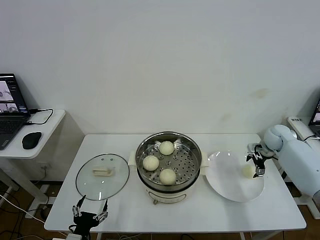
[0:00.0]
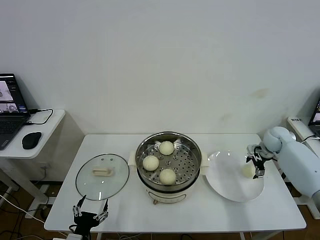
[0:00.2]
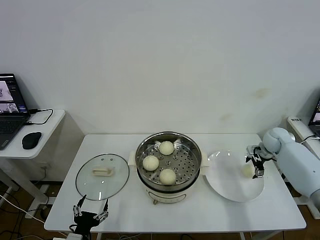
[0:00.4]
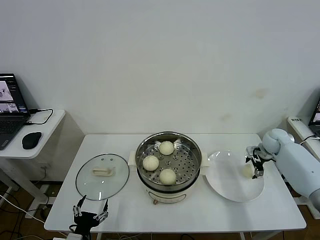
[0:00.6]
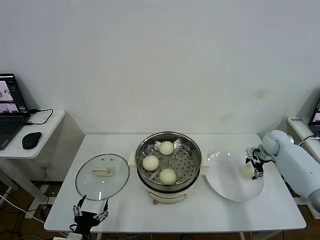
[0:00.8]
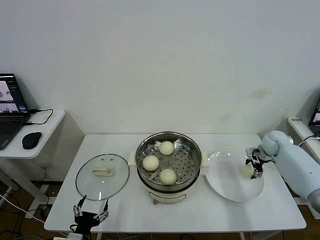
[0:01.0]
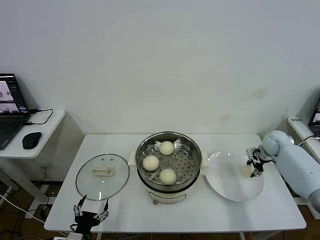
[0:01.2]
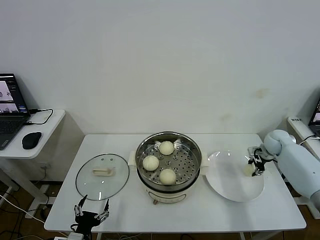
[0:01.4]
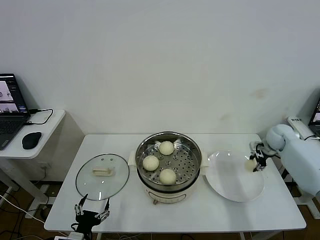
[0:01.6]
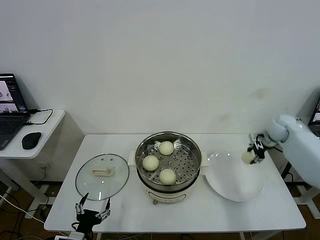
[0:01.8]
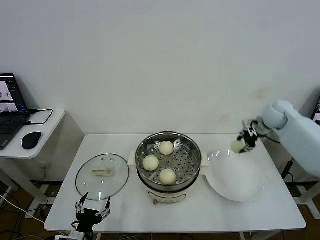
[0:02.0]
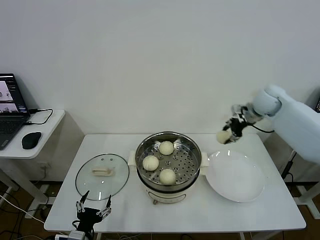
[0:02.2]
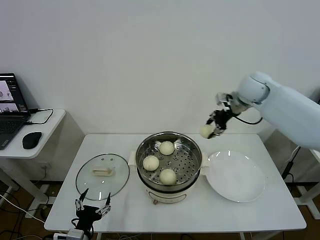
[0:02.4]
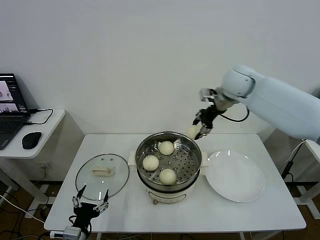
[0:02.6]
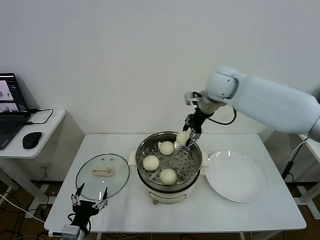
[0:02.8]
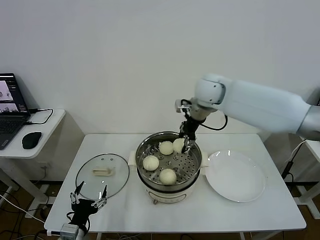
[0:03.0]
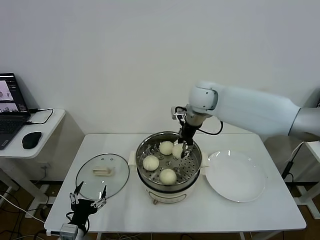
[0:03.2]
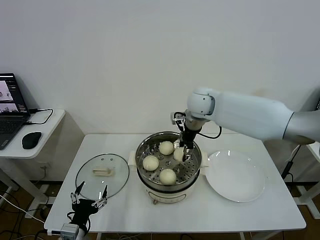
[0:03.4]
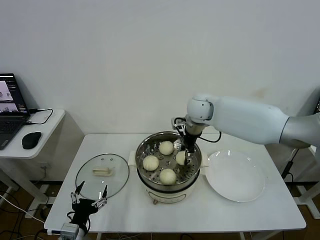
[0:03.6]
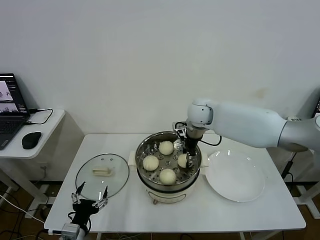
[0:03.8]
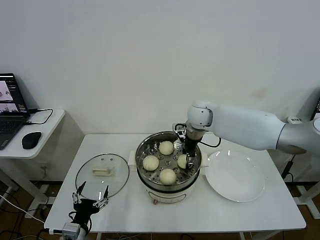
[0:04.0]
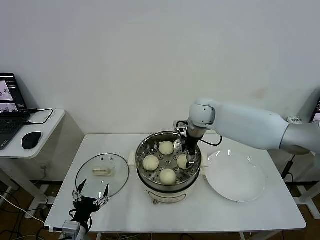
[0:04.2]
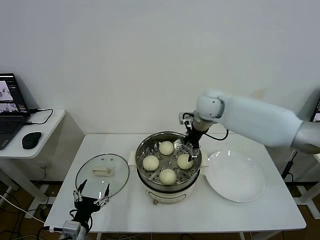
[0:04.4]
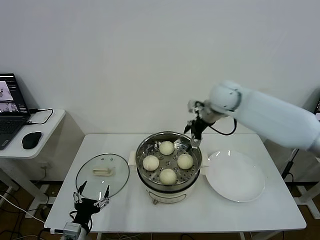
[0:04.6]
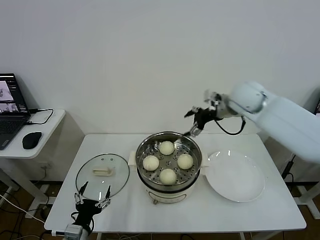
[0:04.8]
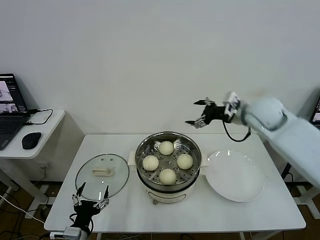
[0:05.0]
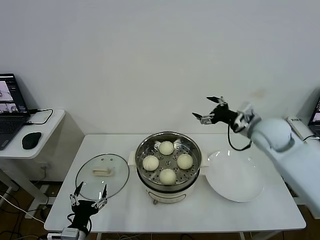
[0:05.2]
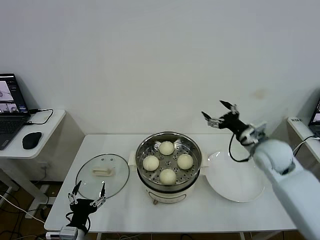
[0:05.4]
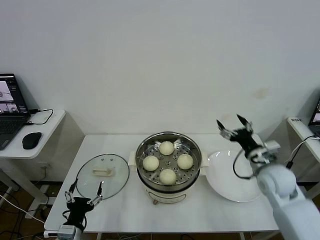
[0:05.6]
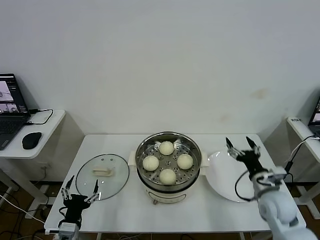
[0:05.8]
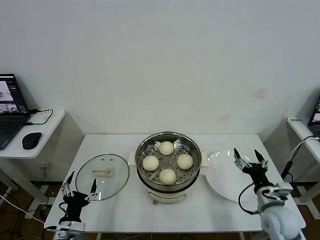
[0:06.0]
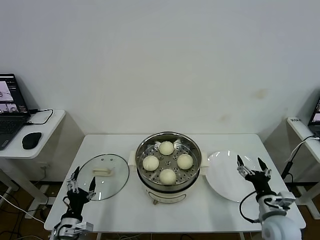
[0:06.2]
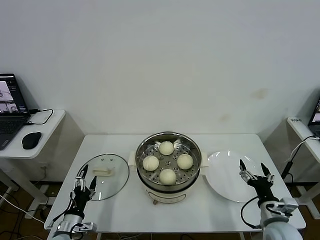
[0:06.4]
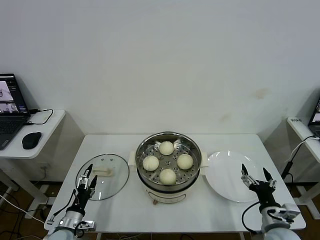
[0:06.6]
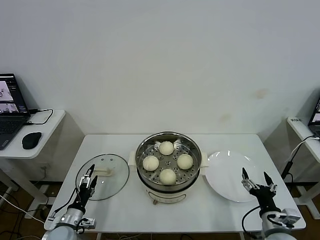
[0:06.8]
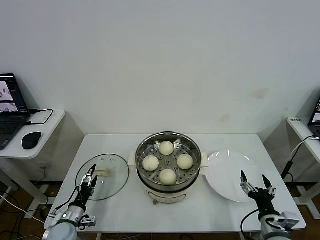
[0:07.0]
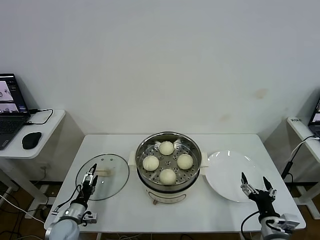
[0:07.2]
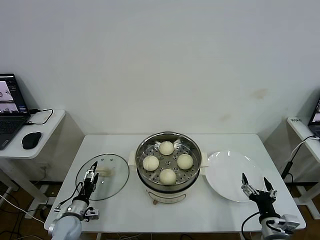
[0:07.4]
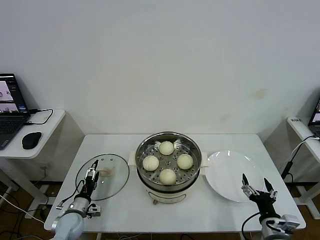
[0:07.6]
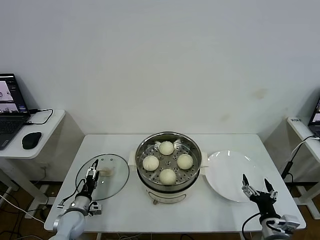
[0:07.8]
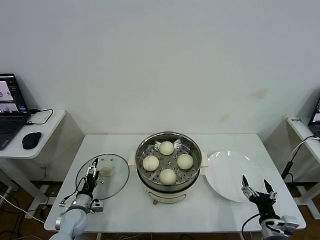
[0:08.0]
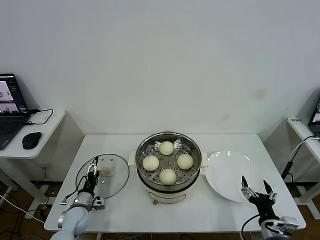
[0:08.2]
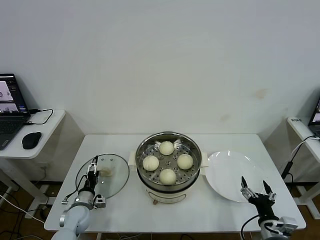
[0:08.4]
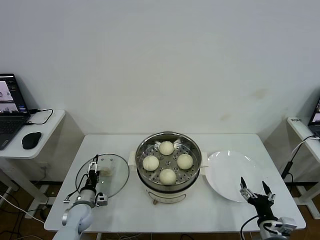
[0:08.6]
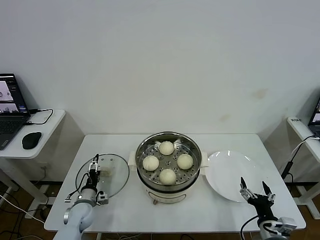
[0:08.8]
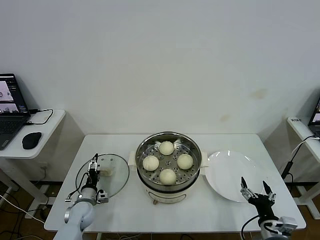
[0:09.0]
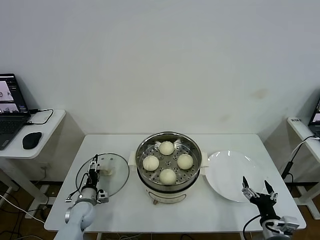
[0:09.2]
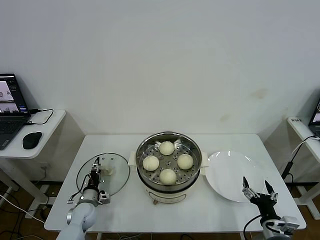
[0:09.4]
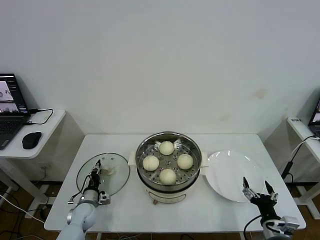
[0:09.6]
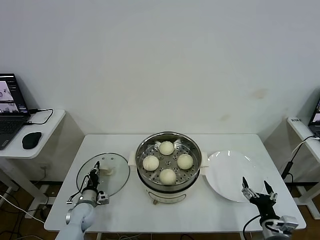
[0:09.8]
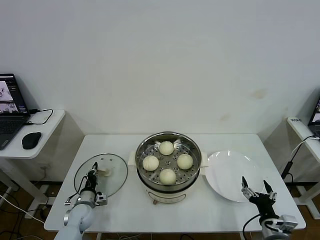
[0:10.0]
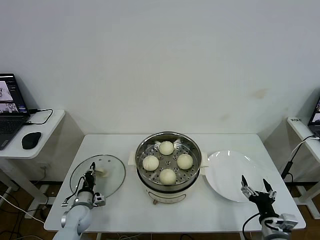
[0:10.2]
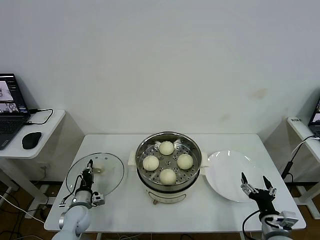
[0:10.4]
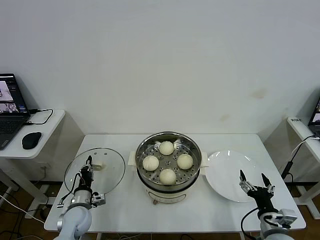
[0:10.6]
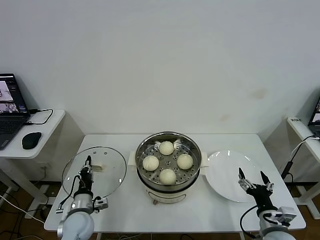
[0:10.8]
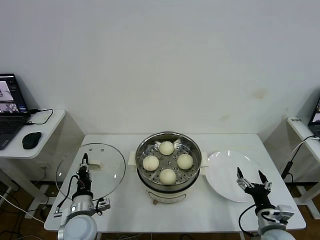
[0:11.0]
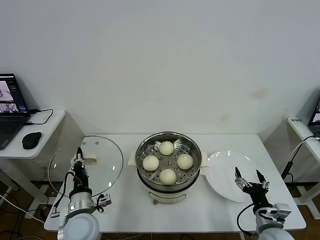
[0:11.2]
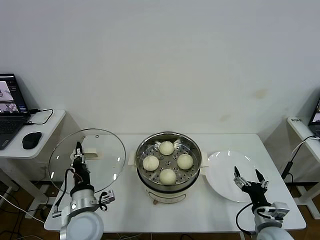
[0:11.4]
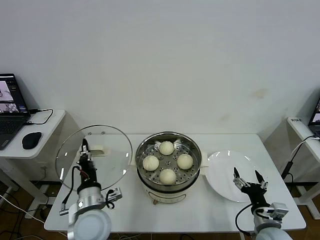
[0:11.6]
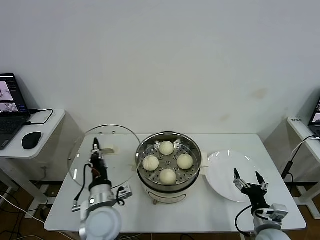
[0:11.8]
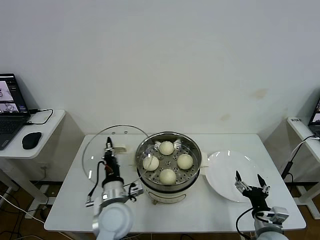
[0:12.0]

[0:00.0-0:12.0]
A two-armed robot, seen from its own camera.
Step, 0:01.4 to 0:04.2: Place the baozi on the steamer with right gripper.
Step, 0:04.4 to 0:09.8: Grasp the pot lid with left gripper.
0:00.0 to 0:01.6: The right gripper closes its fingers.
0:01.6 to 0:03.0: The right gripper shifts about 35 cm to the left and upward.
0:03.0 to 0:04.4: The right gripper is displaced downward by about 5 cm, and opens up.
0:04.4 to 0:06.0: The right gripper moves backward, downward and to the right, some 40 cm.
0:06.0 to 0:07.6: The left gripper moves forward and downward, some 15 cm. The right gripper travels backward by approximately 10 cm.
0:07.6 to 0:09.0: The left gripper shifts by some 5 cm.
0:09.0 to 0:10.4: The left gripper closes its fingers.
0:10.4 to 0:12.0: The left gripper is displaced to the right and upward by roughly 25 cm.

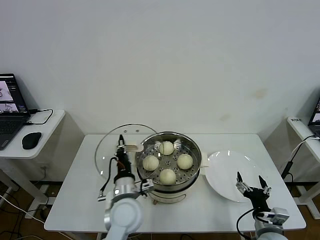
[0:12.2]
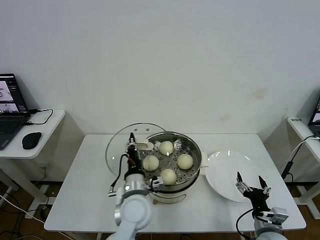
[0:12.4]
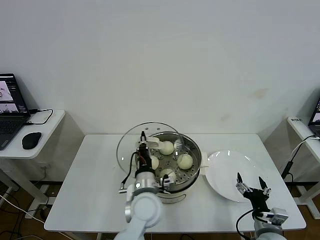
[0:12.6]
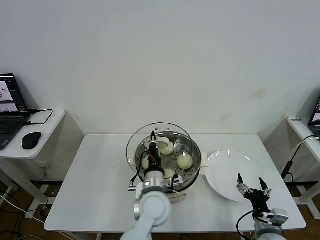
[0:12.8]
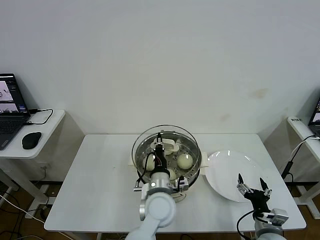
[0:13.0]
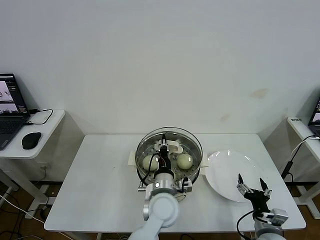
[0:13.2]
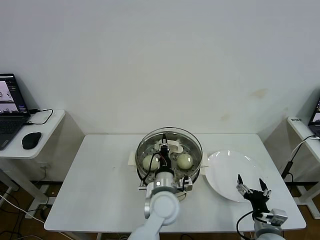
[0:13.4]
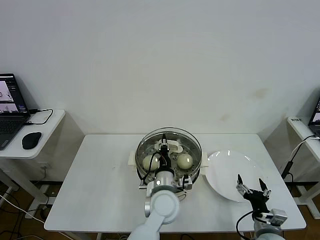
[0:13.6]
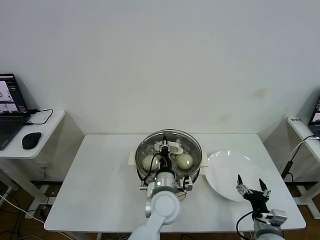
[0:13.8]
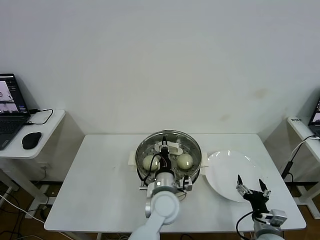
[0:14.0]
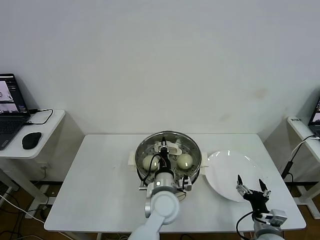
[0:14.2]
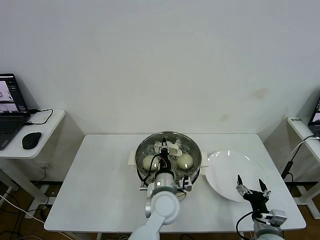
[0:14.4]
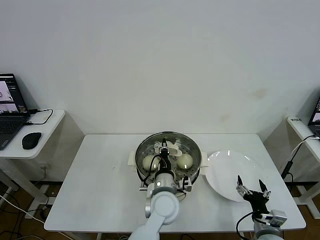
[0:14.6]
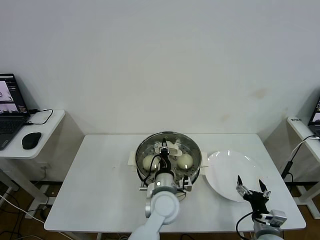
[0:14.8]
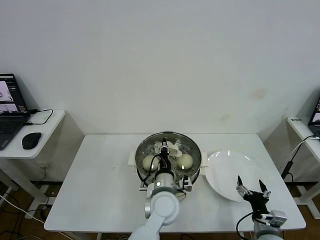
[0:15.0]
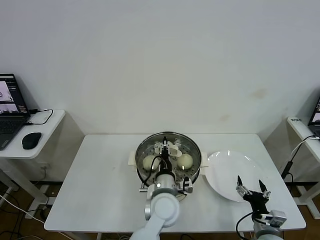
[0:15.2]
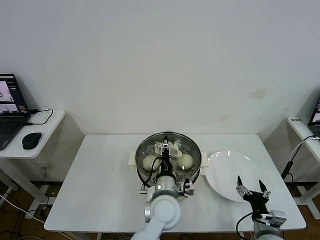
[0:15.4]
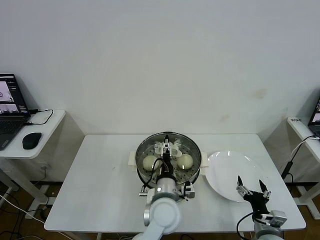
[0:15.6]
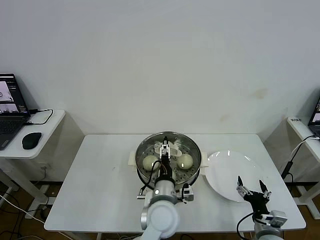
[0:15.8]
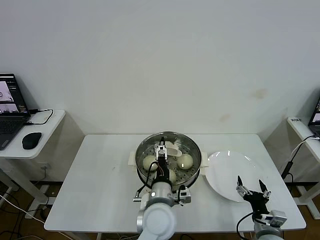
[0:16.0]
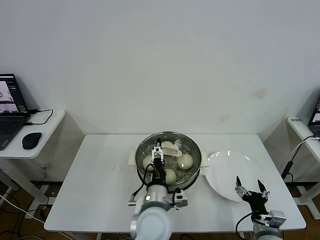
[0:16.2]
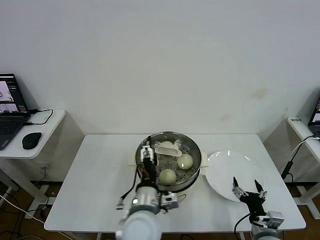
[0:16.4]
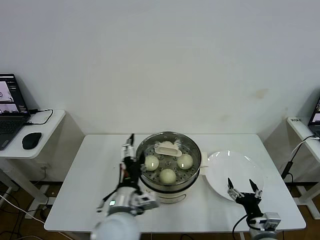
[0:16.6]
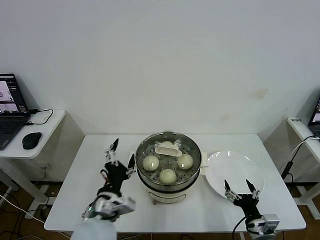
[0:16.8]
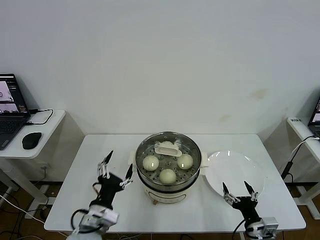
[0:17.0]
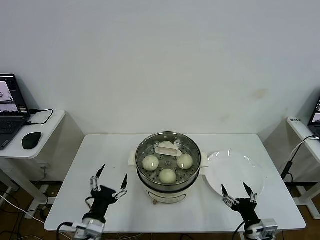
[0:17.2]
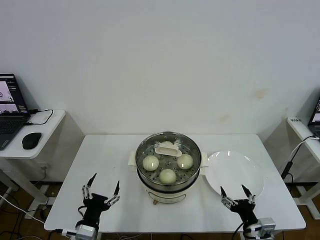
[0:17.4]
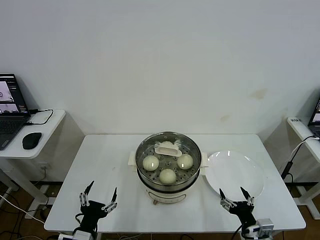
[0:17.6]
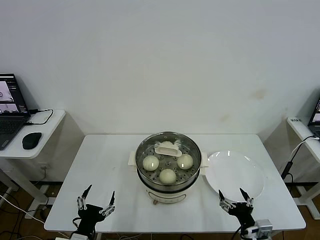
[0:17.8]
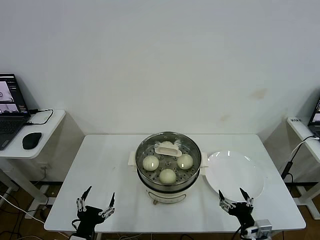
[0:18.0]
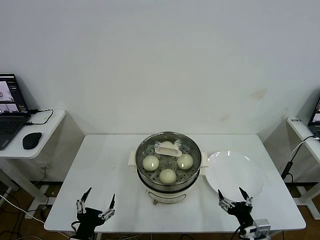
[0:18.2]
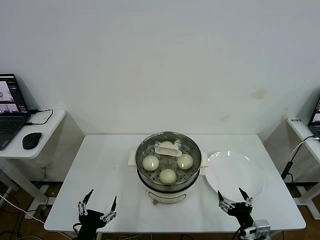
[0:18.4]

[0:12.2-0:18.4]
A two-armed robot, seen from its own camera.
Step, 0:12.2 to 0:15.2: Place the pot lid on the steamer with left gripper.
0:12.2 to 0:13.8: The left gripper goes approximately 10 cm to the right.
0:13.8 to 0:15.4: The left gripper opens.
0:15.4 to 0:16.8: The left gripper goes some 20 cm to the left, backward and upward, and opens.
0:16.8 to 0:18.4: The left gripper goes about 20 cm to the left, backward and downward.
